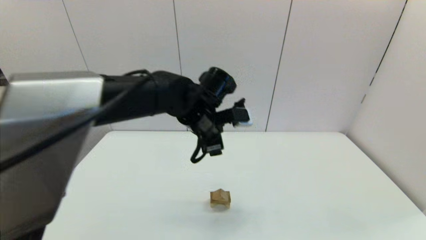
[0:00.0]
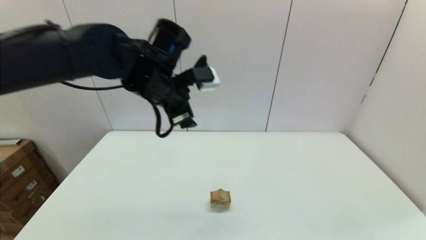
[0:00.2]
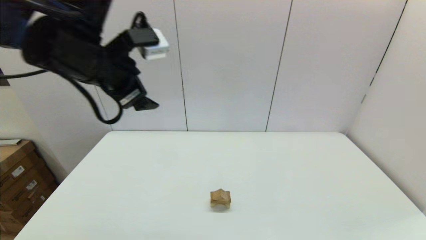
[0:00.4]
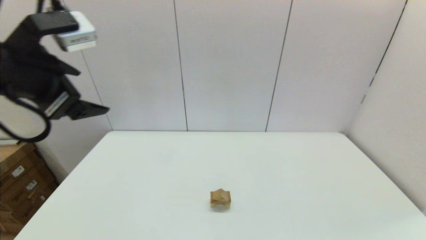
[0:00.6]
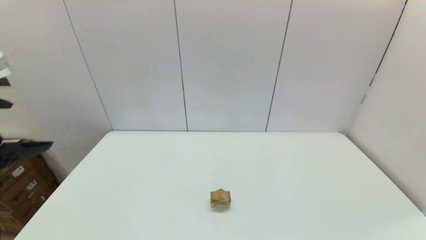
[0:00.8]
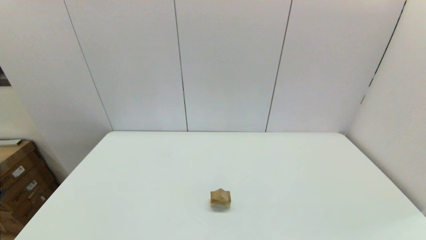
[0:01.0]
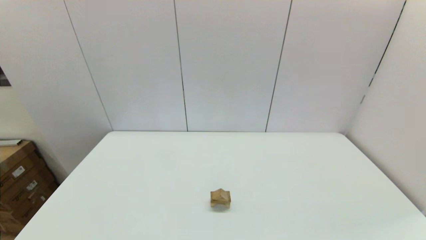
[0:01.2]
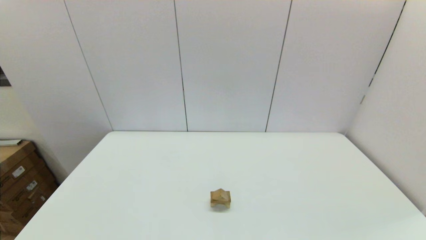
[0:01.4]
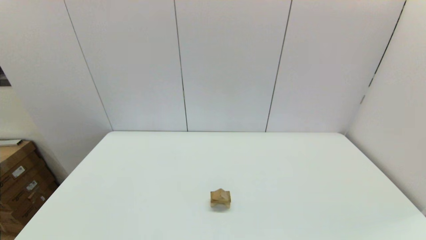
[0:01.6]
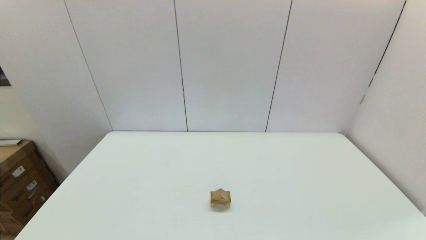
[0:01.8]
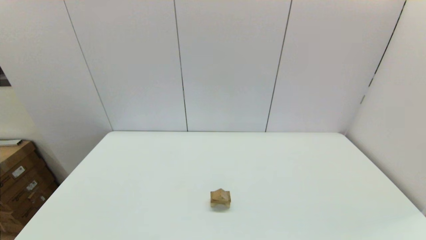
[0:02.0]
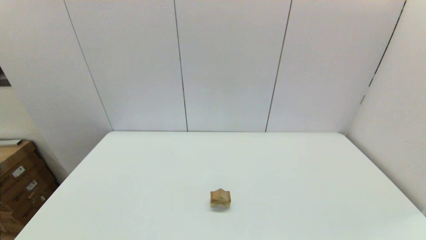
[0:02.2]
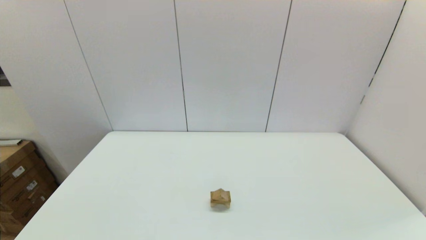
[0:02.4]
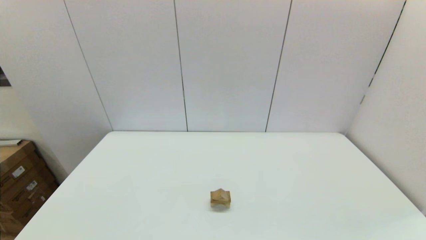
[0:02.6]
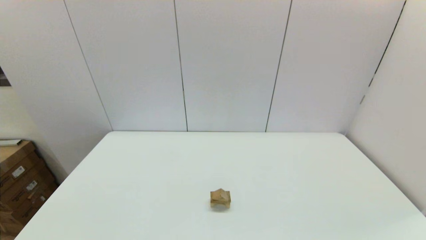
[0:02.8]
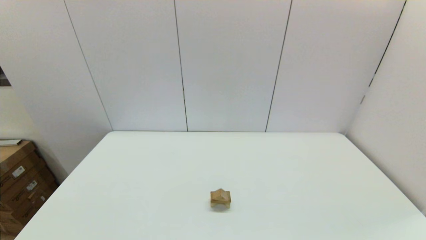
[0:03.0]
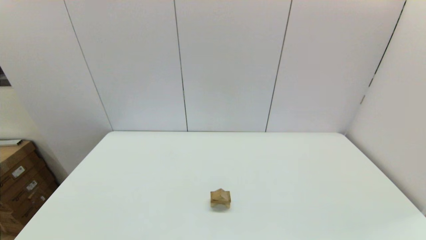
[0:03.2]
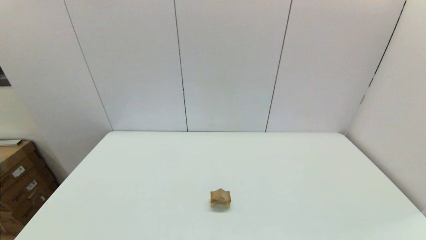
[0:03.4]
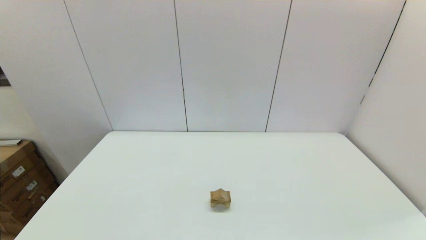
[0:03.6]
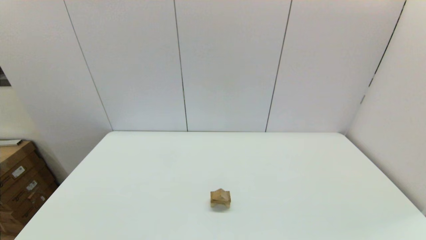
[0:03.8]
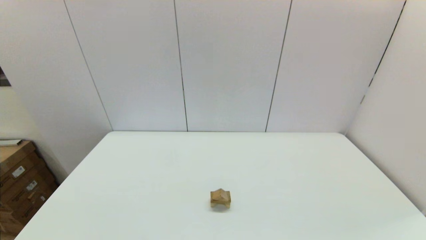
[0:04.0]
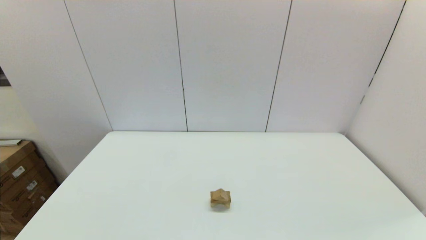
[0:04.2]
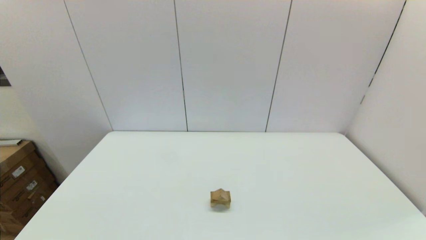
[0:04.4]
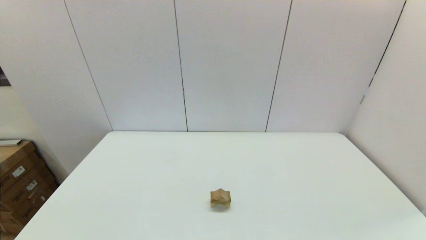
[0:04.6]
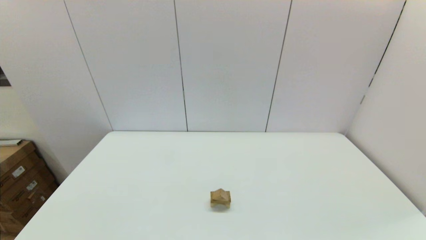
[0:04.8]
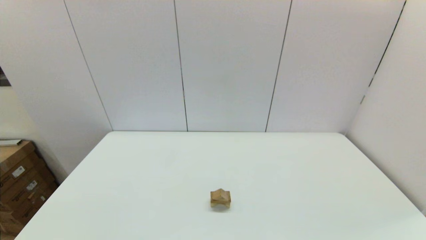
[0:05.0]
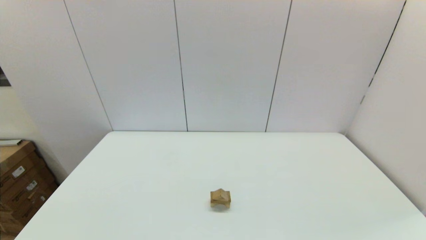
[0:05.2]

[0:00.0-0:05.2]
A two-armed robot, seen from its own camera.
Task of the whole recording: place the arched building blocks in the center of the table, set up the rectangular building blocks, and then set up the triangular building blocks.
0:00.0 to 0:01.8: The left gripper is displaced backward and to the left by some 50 cm.
0:03.4 to 0:05.2: Both grippers stay about where they are.
